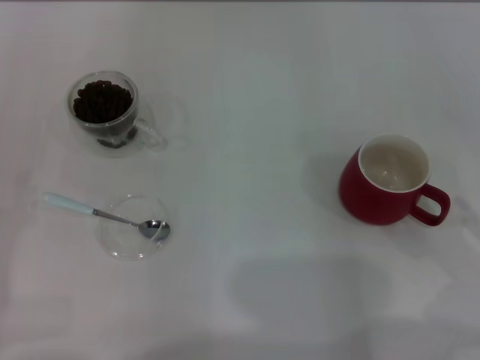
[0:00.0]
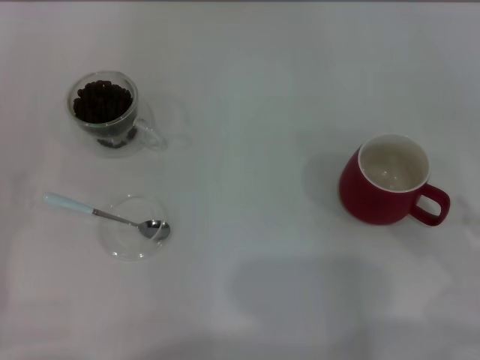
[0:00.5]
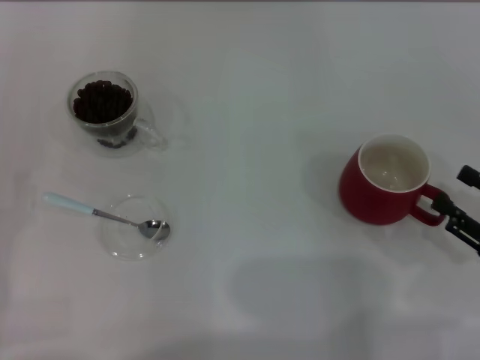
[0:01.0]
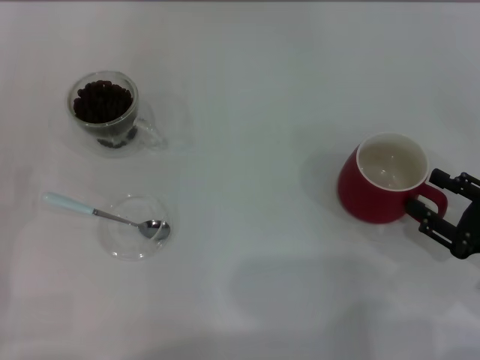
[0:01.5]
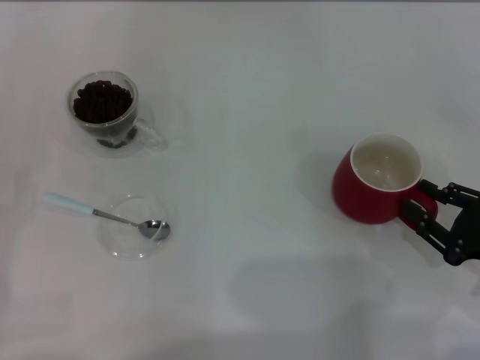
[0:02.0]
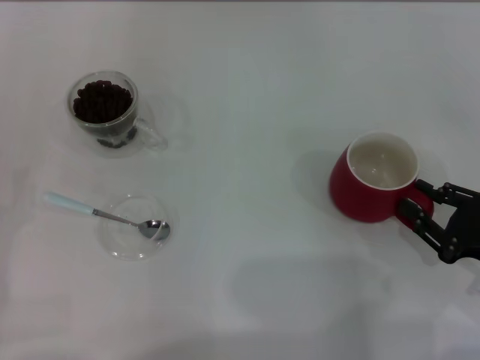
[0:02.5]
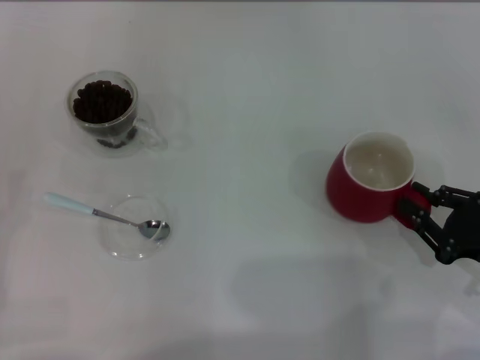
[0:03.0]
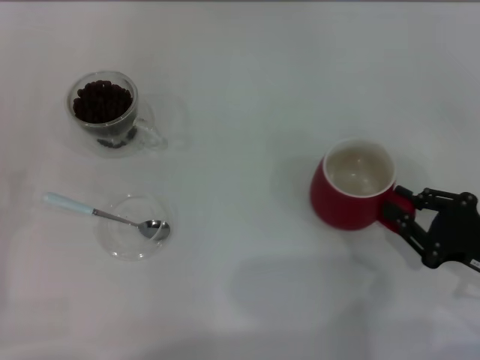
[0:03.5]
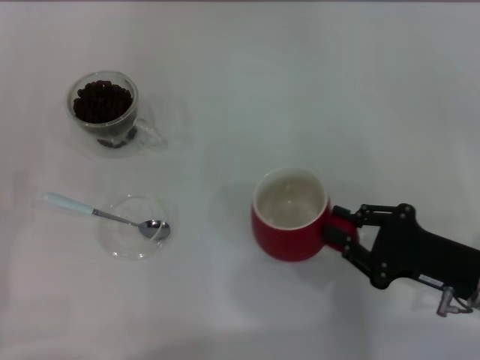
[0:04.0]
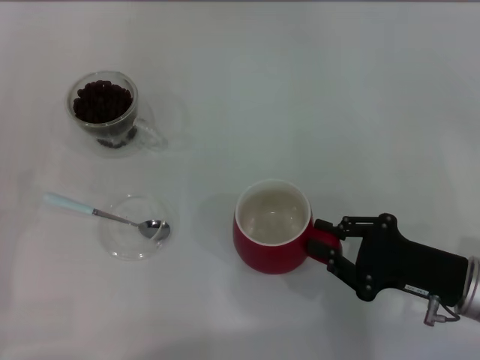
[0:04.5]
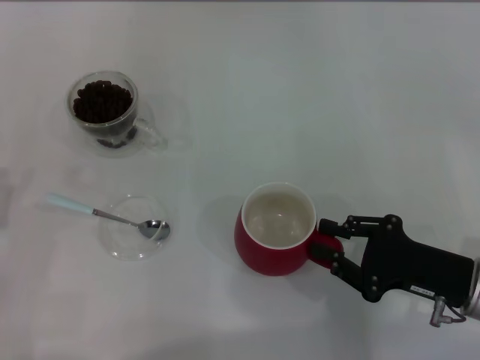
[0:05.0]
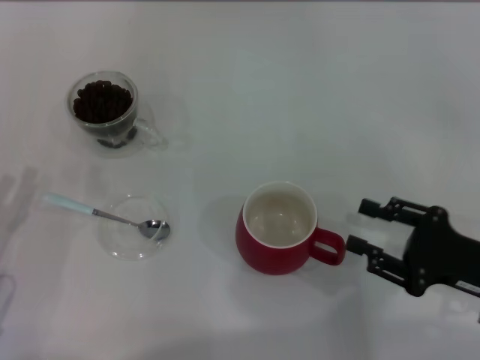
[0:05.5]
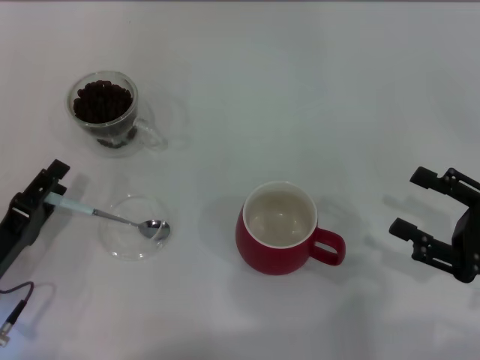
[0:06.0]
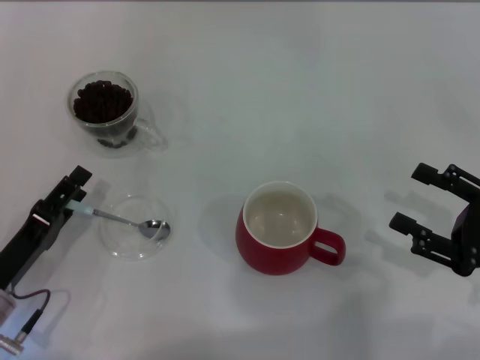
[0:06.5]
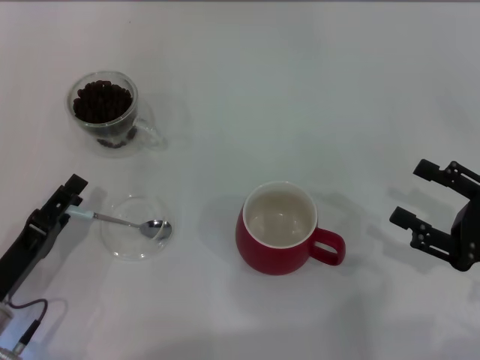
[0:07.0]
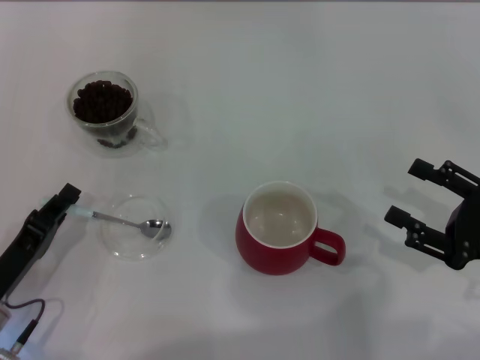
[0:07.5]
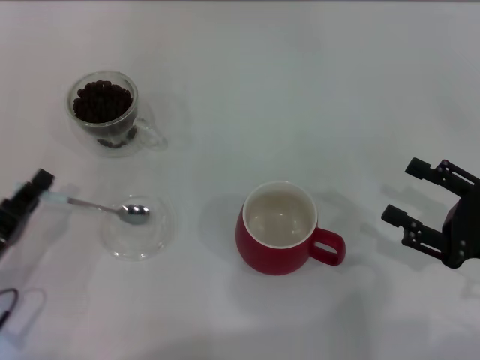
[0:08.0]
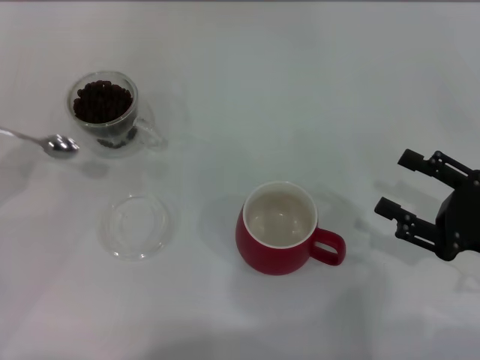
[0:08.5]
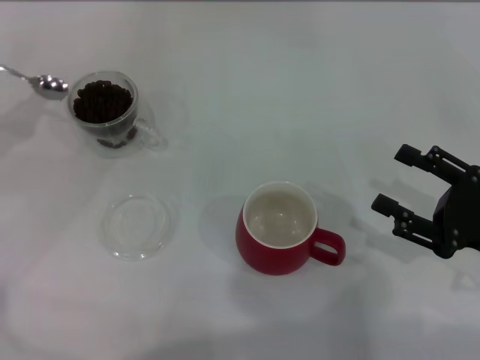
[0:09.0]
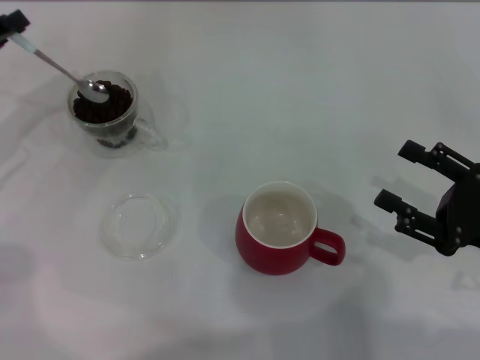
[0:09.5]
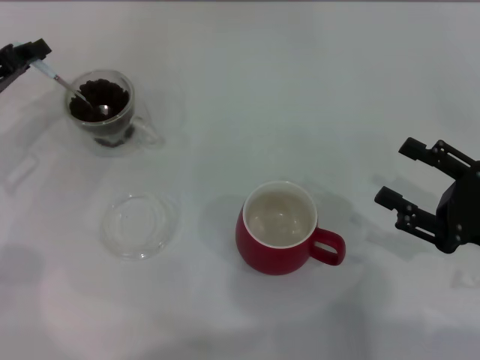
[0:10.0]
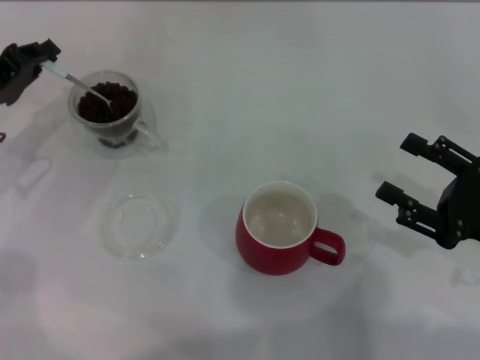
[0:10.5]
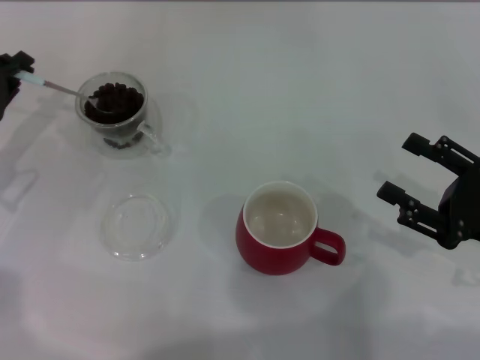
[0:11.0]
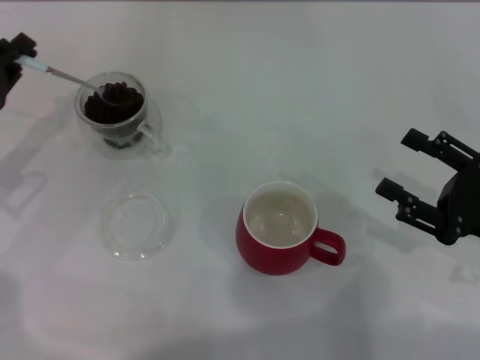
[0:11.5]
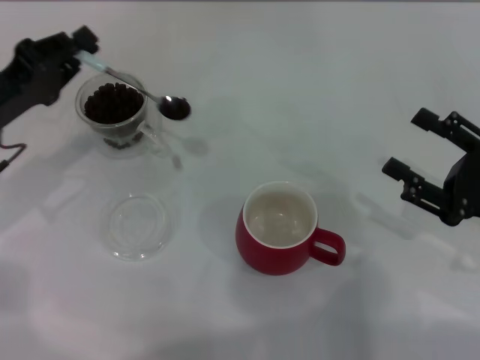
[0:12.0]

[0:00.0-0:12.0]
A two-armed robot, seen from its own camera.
Task of the whole recording: Use a blue spoon to take out the coffee beans from the glass and pour them into the red cup.
Step, 0:00.0 to 0:05.0: Move the cup to the center of view with the left gripper.
Step, 0:06.0 to 0:08.0: Pick up the spoon with the right gripper.
0:00.0 to 0:02.0: The right gripper moves roughly 5 cm.
0:02.0 to 0:04.0: The right gripper heads to the left, covering approximately 5 cm, and closes up.
0:04.0 to 0:06.0: The right gripper moves to the right, some 5 cm, and opens its fingers. Meanwhile the left gripper moves to the right, some 10 cm.
0:06.0 to 0:08.0: The left gripper closes up.
0:08.0 to 0:10.0: The left gripper goes roughly 20 cm forward and upward.
0:10.0 to 0:12.0: The left gripper ends up approximately 5 cm from where it was.

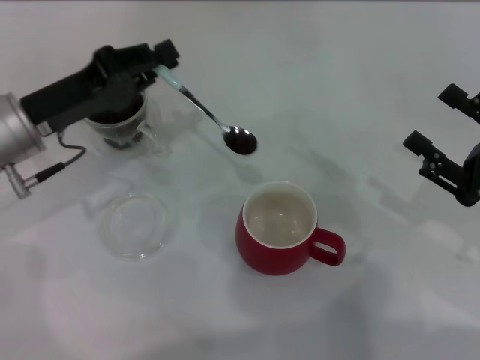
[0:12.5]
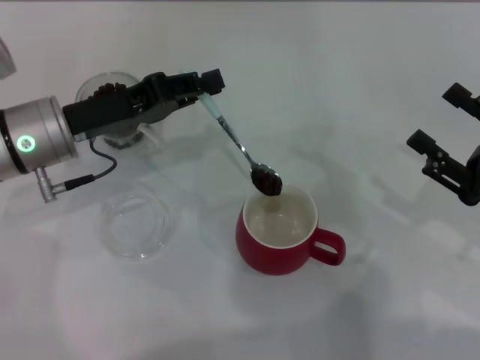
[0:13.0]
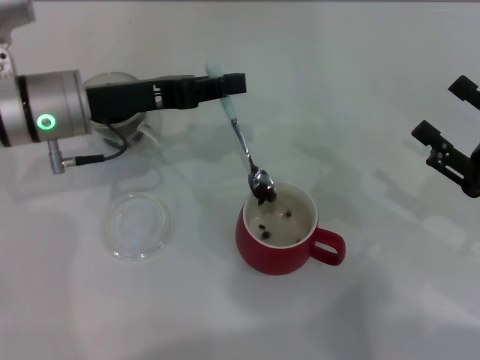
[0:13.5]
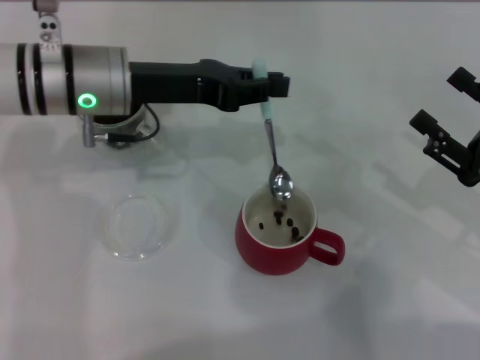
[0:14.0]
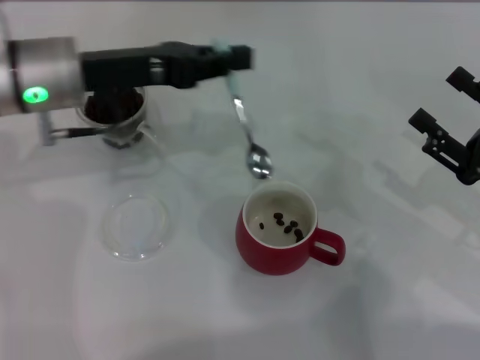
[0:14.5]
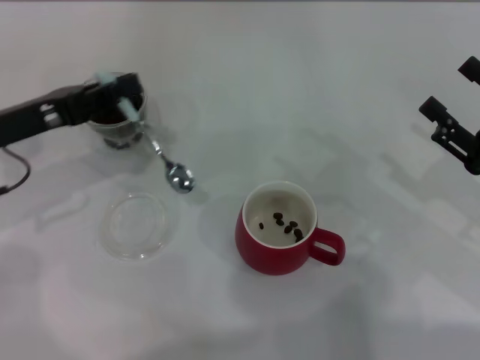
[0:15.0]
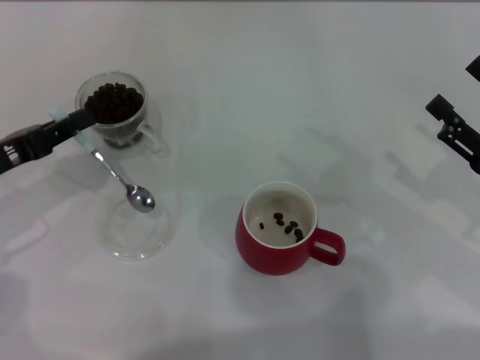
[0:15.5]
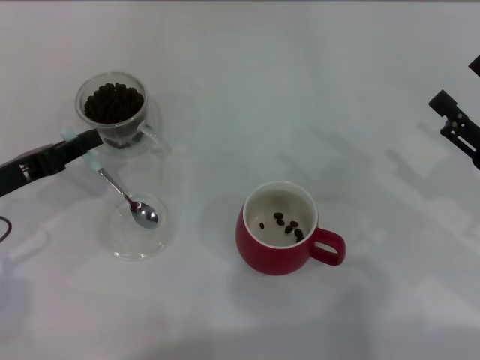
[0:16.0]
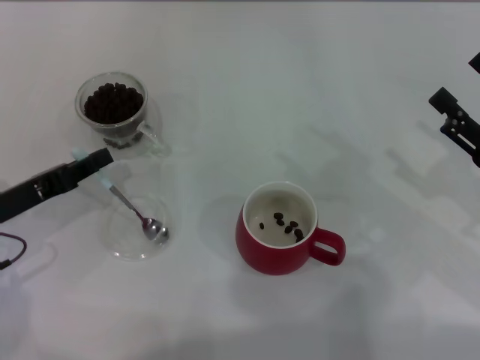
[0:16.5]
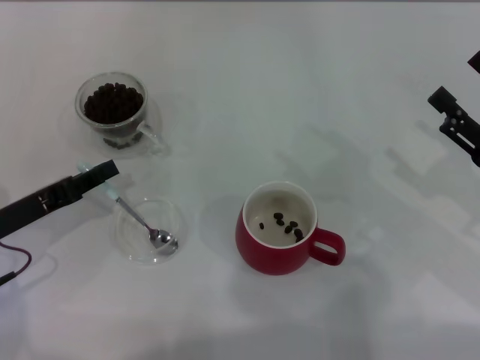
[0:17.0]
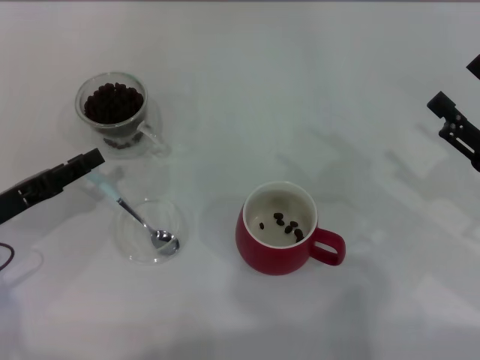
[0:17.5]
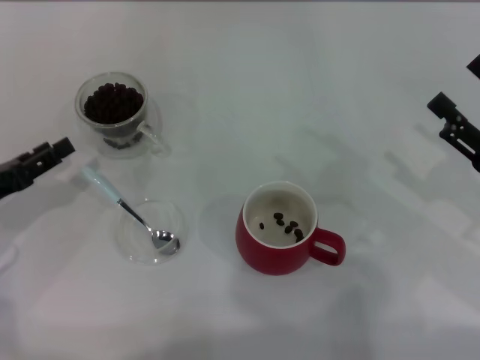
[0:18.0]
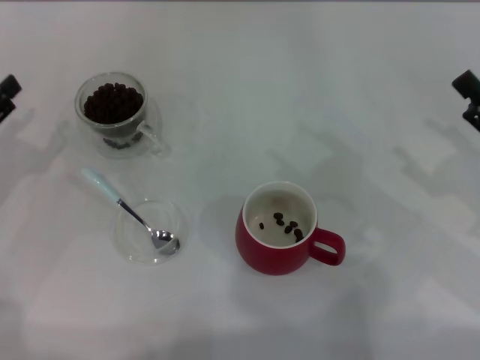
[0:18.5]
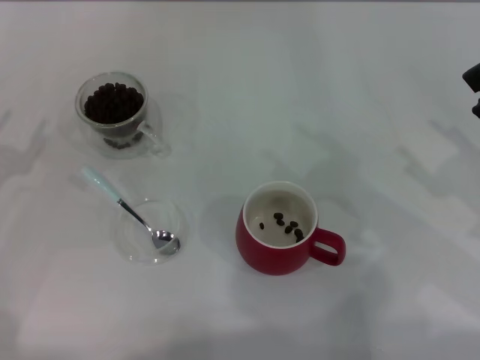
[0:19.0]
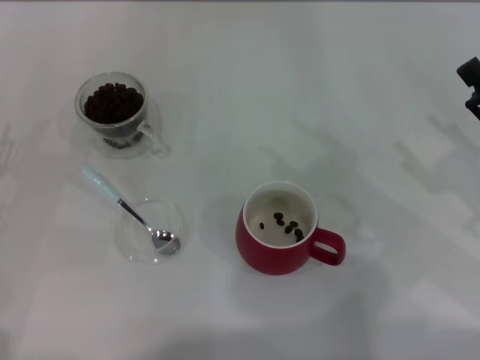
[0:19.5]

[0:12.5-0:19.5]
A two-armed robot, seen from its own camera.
Task of the whole recording: Use a blue spoon to take out the coffee beans from the glass and pour them into the red cup.
0:12.5 to 0:14.5: The left gripper shifts by about 10 cm.
0:14.5 to 0:16.0: The left gripper heads to the left, backward and downward, covering roughly 15 cm.
0:16.0 to 0:17.5: The left gripper opens.
0:17.5 to 0:19.5: The left gripper opens its fingers.

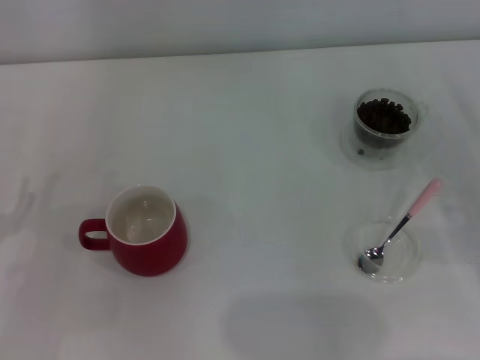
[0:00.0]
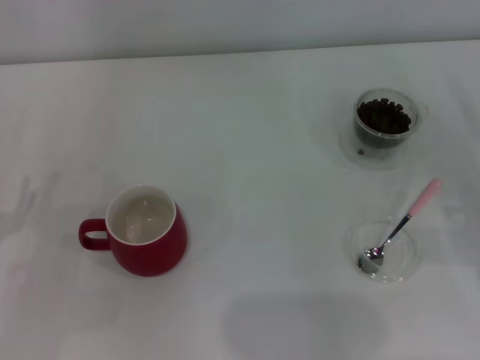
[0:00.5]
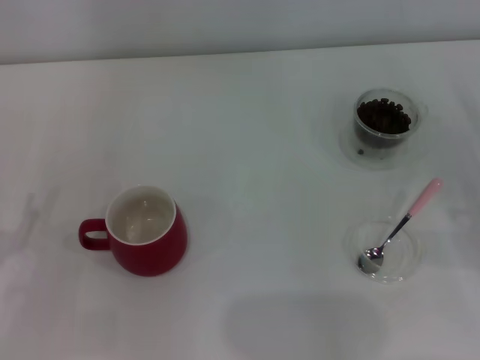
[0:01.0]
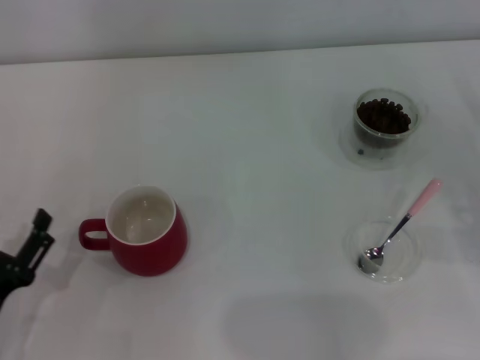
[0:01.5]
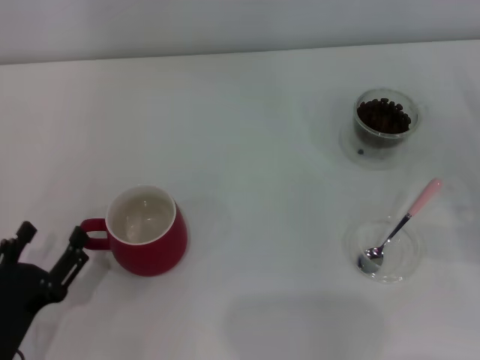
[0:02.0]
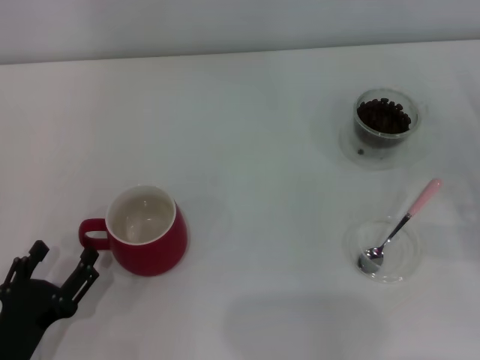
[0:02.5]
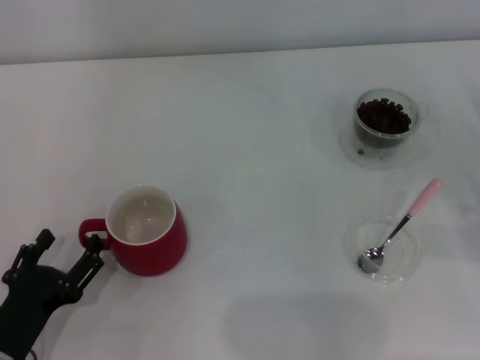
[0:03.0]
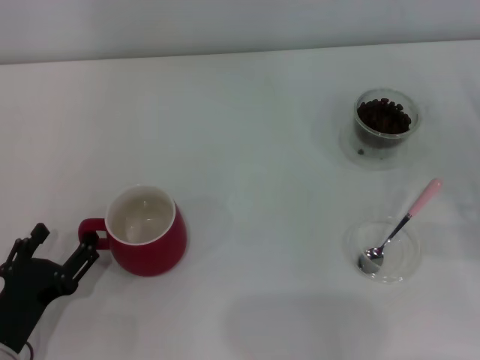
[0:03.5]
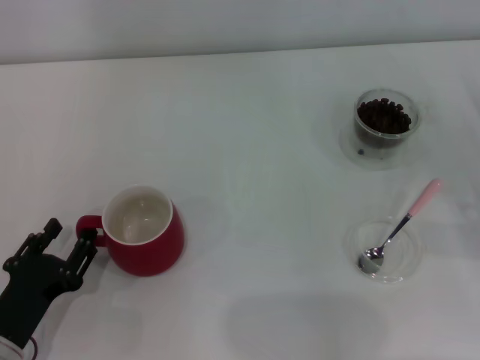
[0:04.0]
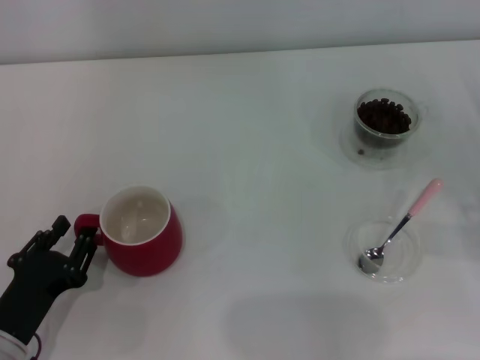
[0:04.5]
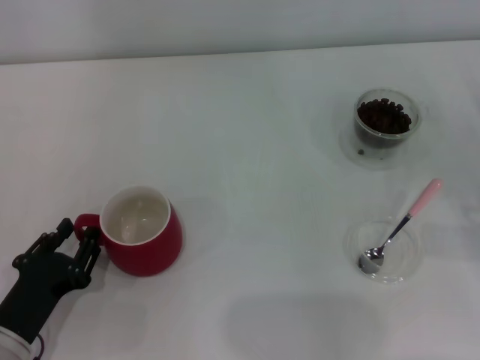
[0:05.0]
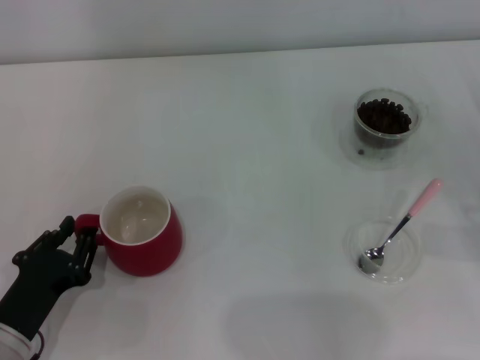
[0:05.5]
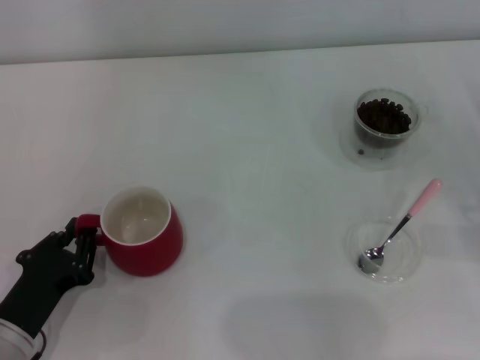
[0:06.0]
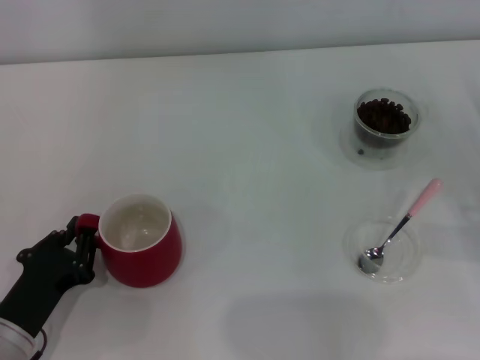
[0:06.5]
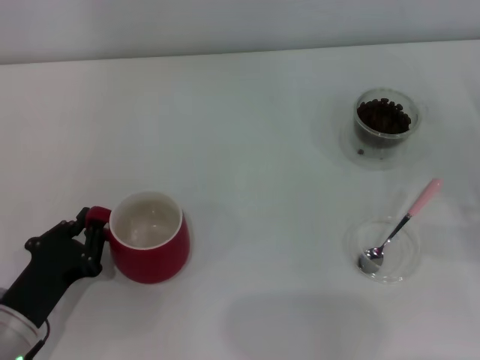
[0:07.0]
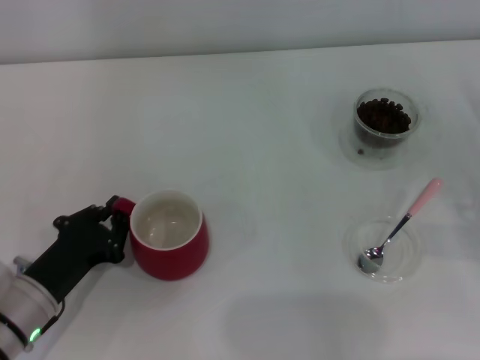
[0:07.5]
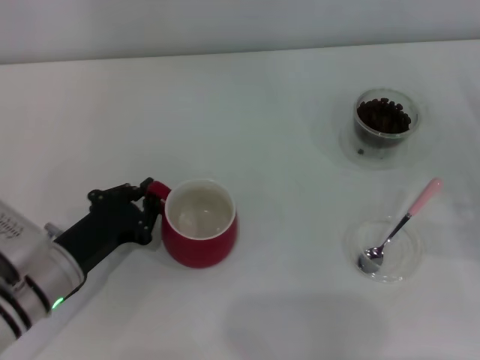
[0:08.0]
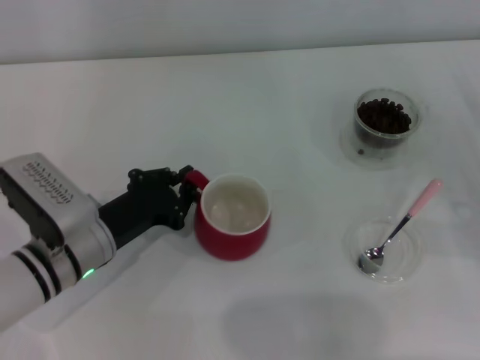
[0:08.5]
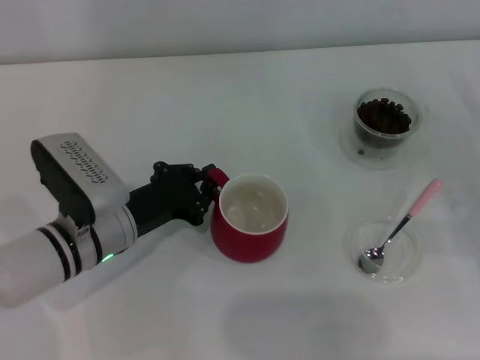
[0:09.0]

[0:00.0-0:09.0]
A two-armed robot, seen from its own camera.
Task of the whole recording: Use a pink spoon to take out the coffee beans from the glass and pour them into the red cup.
0:00.0 to 0:02.0: The left gripper moves backward and to the right, roughly 10 cm.
0:02.0 to 0:04.5: The left gripper closes up.
0:04.5 to 0:07.0: The left gripper closes its fingers.
0:07.0 to 0:09.0: The left gripper heads forward and to the right, covering about 15 cm.
